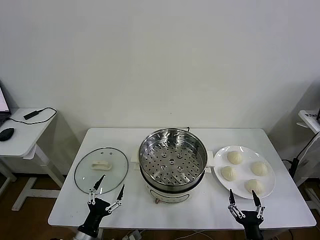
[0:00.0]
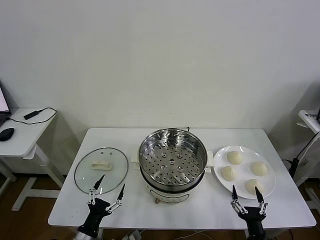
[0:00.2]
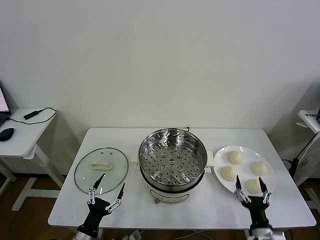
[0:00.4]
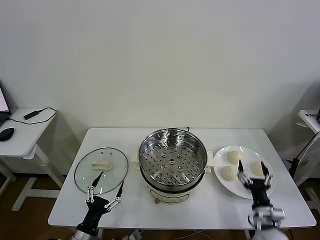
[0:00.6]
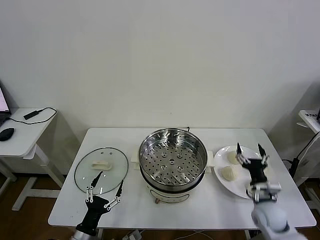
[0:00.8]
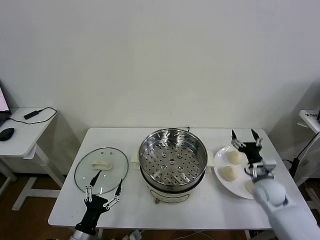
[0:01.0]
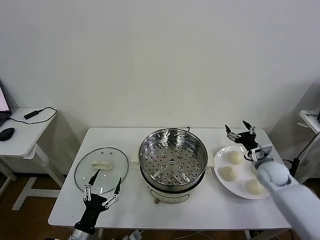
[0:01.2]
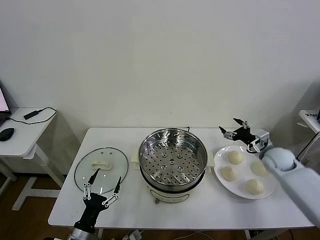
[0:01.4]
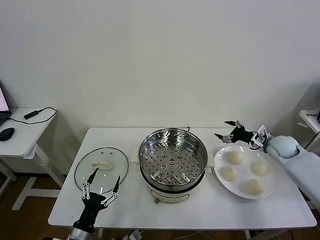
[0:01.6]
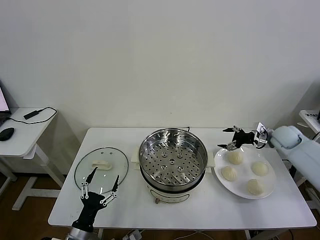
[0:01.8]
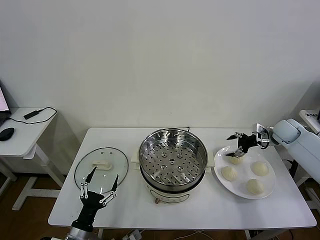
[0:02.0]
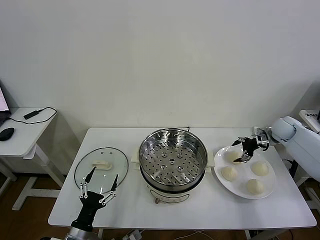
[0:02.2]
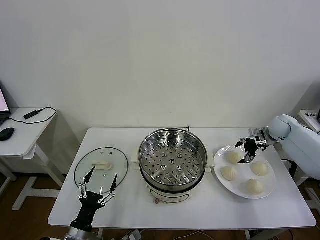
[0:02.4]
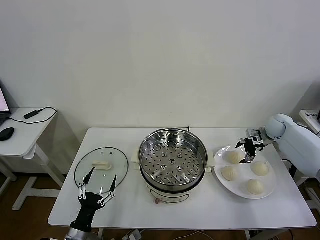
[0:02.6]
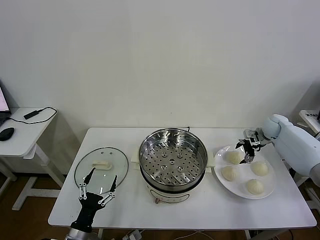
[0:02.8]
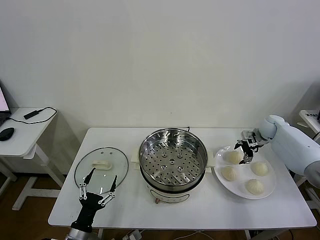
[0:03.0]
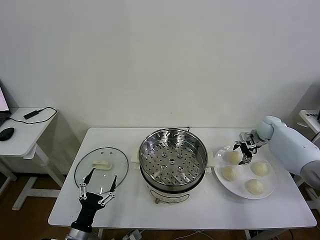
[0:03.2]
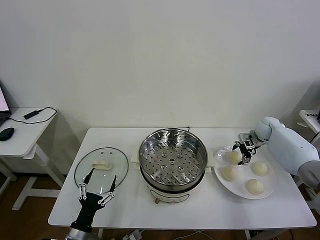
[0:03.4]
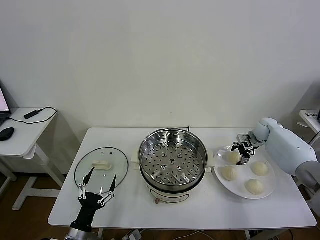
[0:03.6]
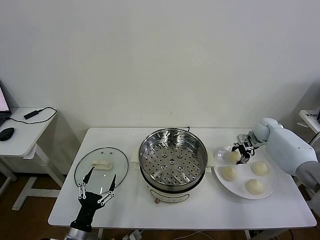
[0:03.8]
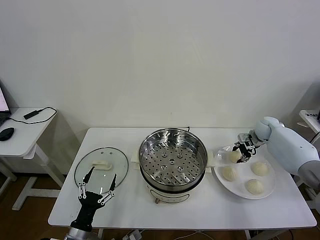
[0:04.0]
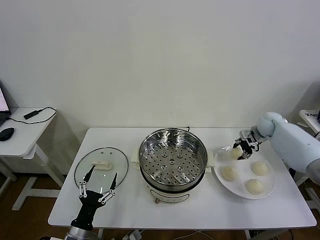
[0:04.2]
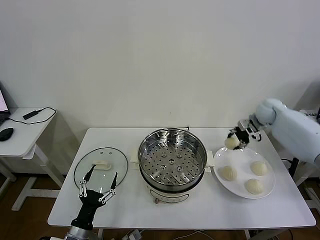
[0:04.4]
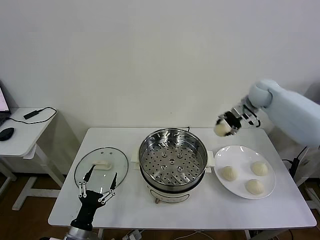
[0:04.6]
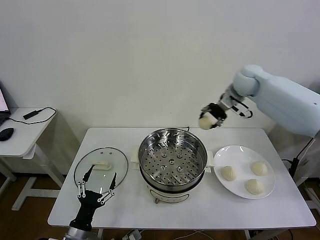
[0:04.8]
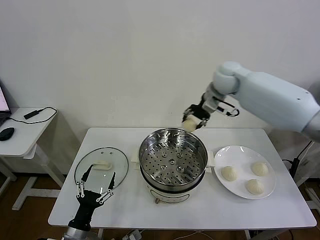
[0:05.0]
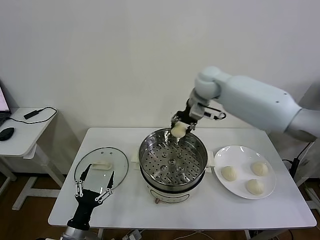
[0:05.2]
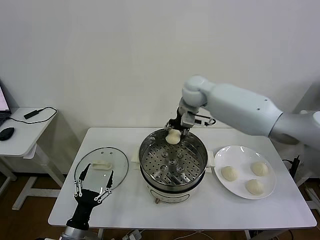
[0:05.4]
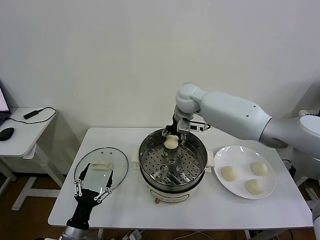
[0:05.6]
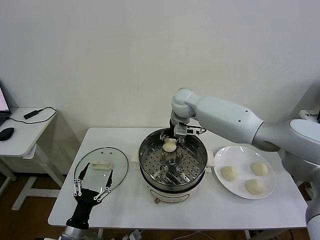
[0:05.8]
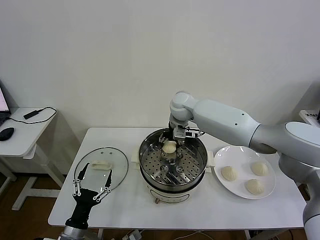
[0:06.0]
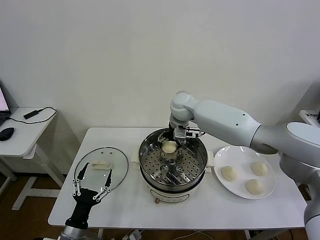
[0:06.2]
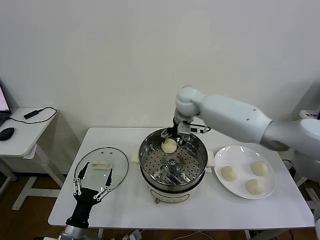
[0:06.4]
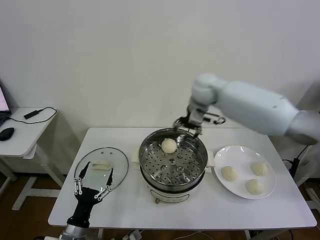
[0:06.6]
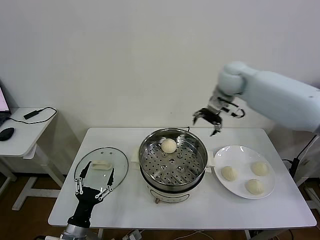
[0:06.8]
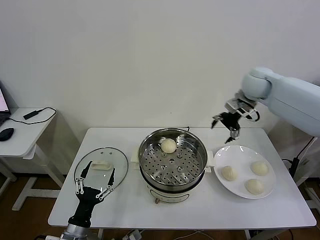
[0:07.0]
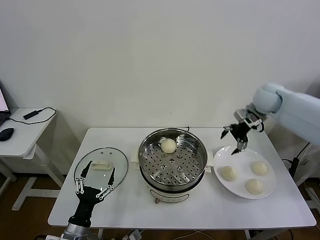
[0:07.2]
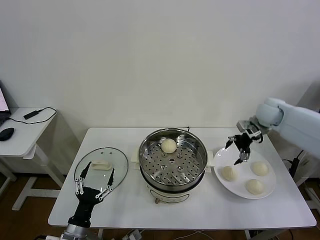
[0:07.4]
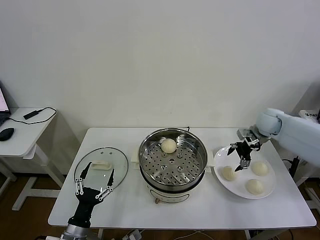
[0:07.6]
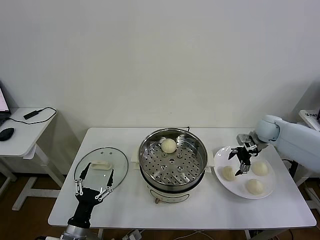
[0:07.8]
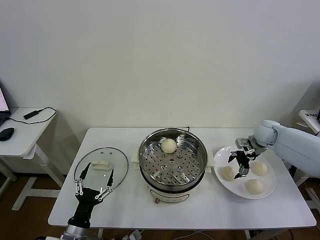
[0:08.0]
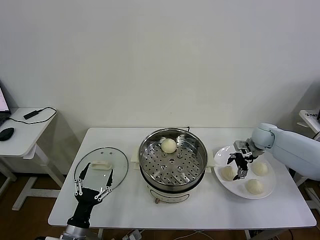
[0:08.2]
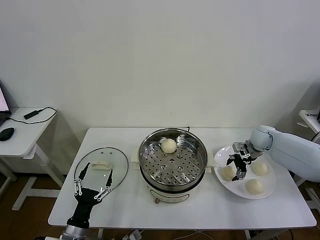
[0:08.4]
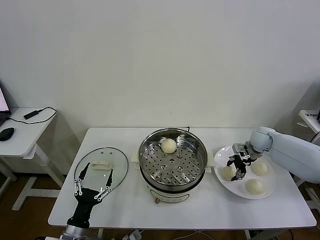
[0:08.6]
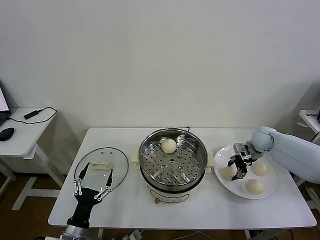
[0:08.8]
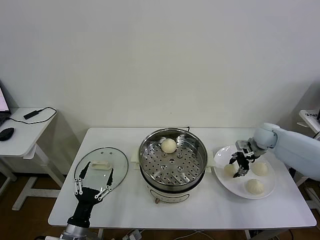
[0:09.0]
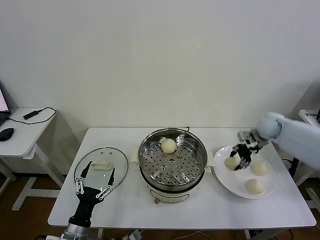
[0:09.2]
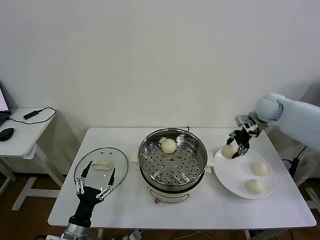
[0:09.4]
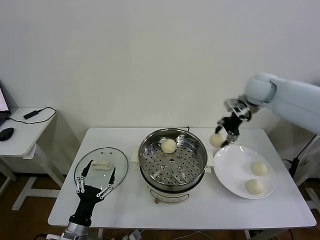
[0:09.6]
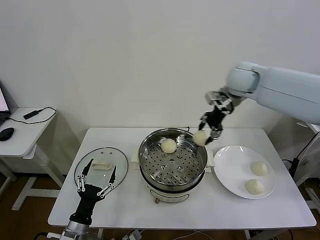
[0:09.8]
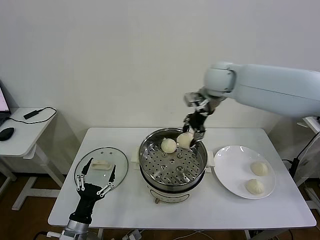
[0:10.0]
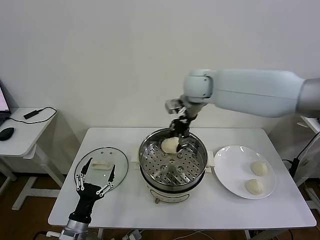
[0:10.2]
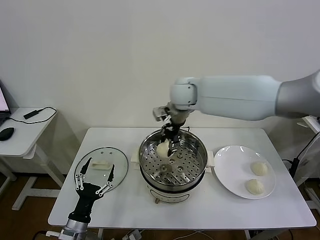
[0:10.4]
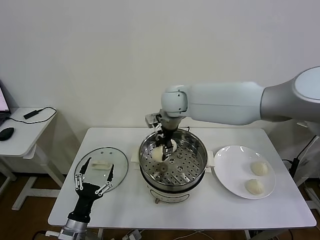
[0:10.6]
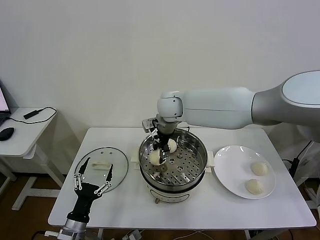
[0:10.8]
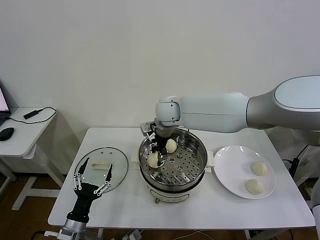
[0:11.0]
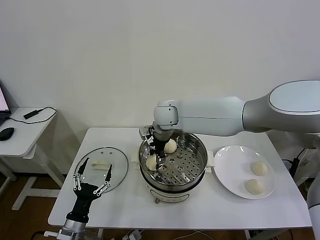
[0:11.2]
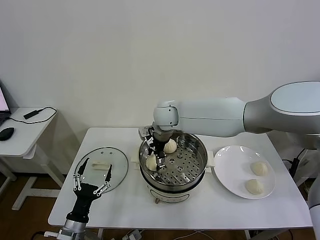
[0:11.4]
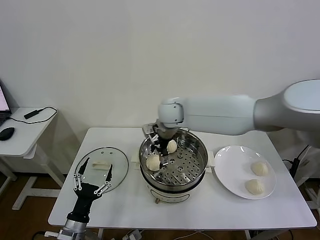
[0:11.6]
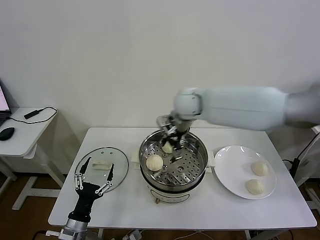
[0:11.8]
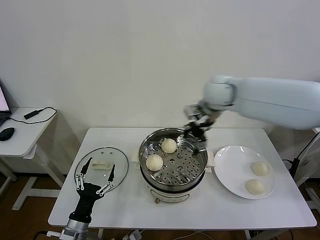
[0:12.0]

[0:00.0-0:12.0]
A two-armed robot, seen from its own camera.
Task of the whole recording: take steamed baozi put them in steamer then cover it.
Step, 0.0 to 3.6 s: Grasp the baozi in the plate with right gripper.
Step, 4.0 to 6.2 s: Place the baozi on the steamer with right gripper.
Step, 6.4 to 8.6 s: Grasp the baozi in the plate with right gripper.
Step, 9.0 to 11.4 s: Place the baozi on the steamer with right gripper.
1.6 to 3.0 s: The right gripper goes approximately 10 cm forward.
3.0 to 4.4 s: The right gripper is displaced upward by about 10 cm, and closes its fingers.
4.4 to 6.0 s: The right gripper heads to the left, covering approximately 35 cm, and opens its fingers.
6.0 to 7.6 s: The right gripper shifts about 30 cm to the right, and opens up.
7.6 to 9.0 s: The right gripper is displaced downward by approximately 5 cm, and closes.
9.0 to 10.4 s: The right gripper goes some 40 cm to the left and upward.
10.4 to 12.0 s: The right gripper heads to the right, covering some 10 cm, and opens up.

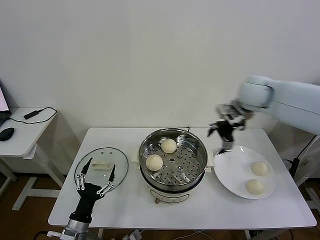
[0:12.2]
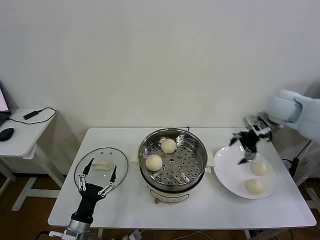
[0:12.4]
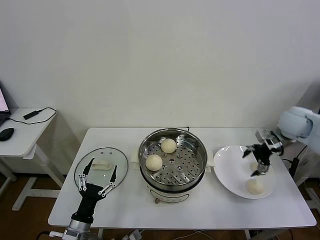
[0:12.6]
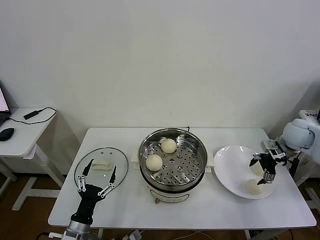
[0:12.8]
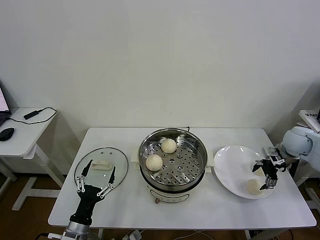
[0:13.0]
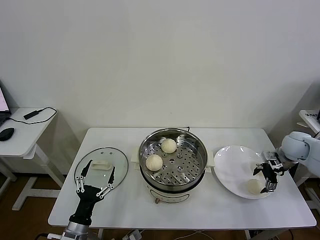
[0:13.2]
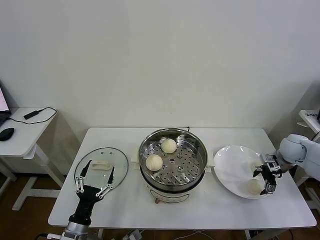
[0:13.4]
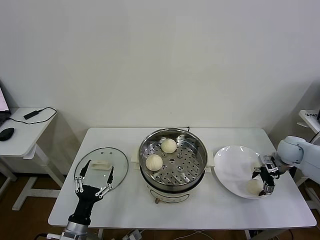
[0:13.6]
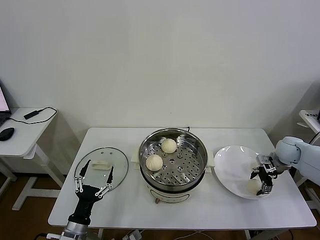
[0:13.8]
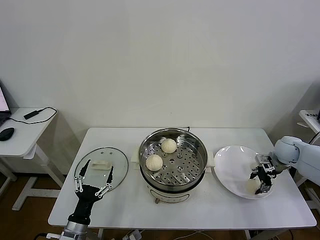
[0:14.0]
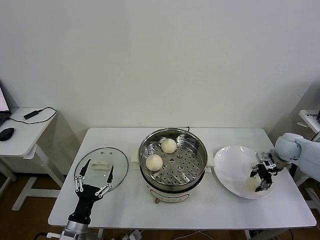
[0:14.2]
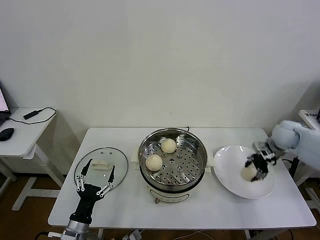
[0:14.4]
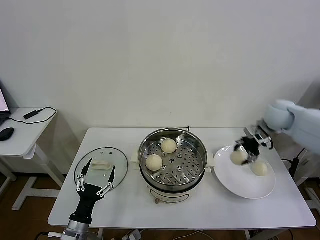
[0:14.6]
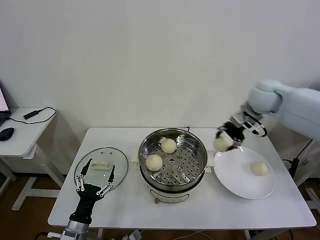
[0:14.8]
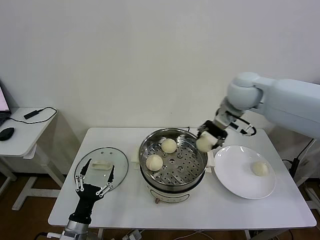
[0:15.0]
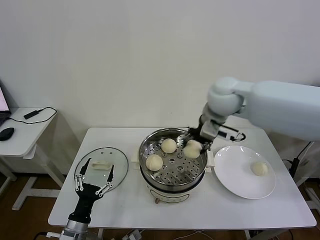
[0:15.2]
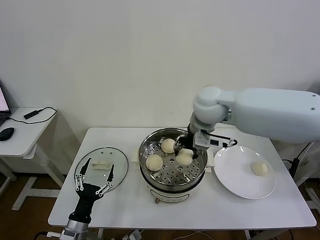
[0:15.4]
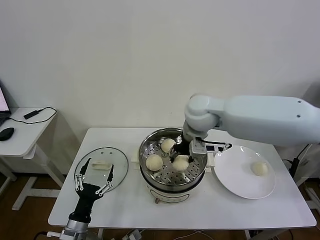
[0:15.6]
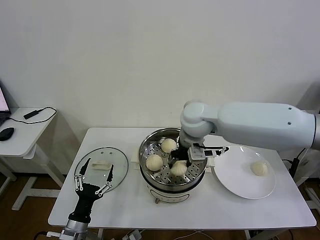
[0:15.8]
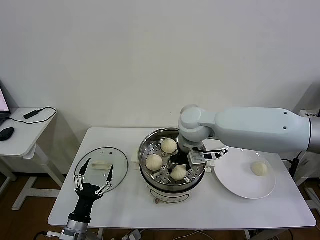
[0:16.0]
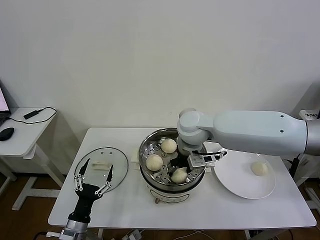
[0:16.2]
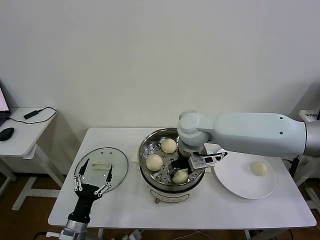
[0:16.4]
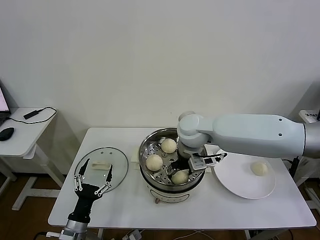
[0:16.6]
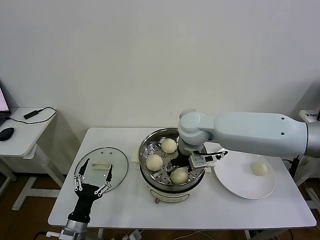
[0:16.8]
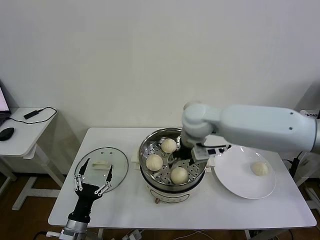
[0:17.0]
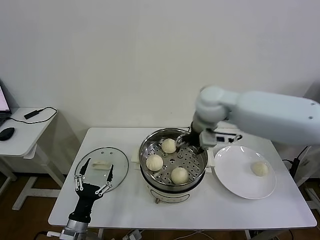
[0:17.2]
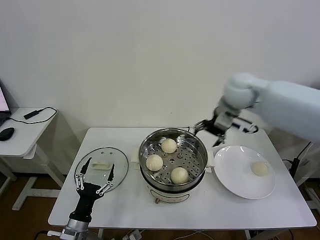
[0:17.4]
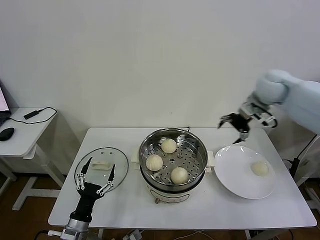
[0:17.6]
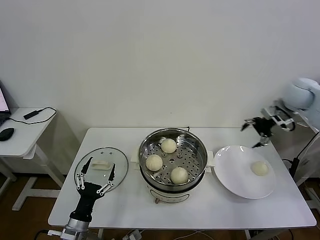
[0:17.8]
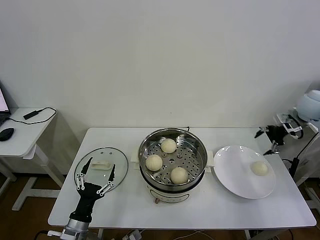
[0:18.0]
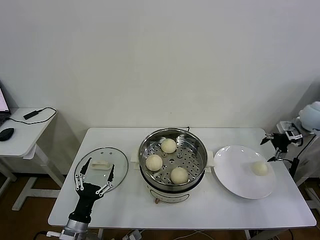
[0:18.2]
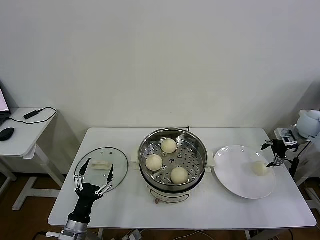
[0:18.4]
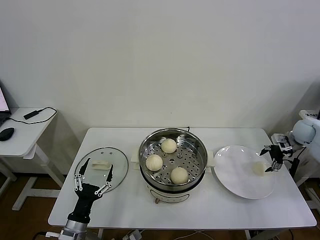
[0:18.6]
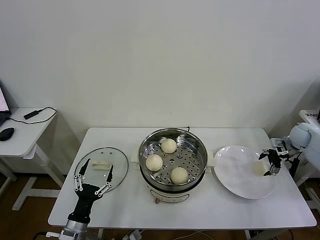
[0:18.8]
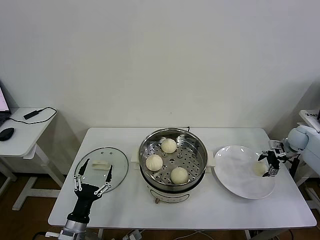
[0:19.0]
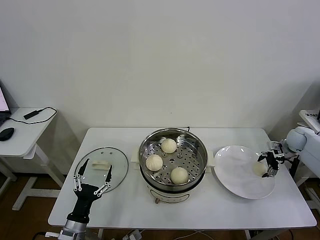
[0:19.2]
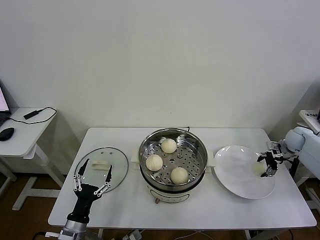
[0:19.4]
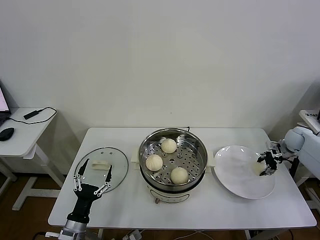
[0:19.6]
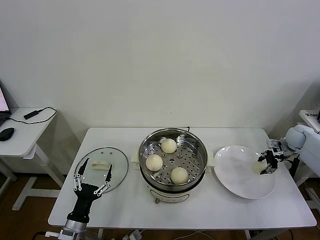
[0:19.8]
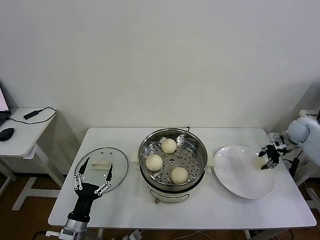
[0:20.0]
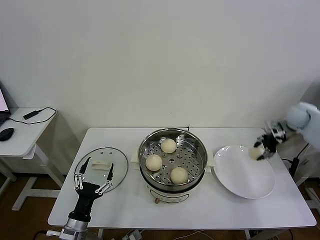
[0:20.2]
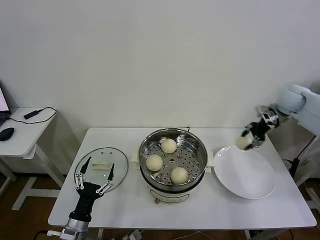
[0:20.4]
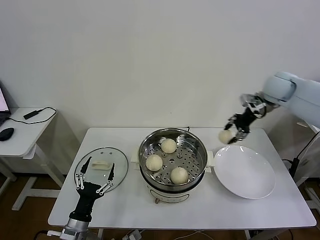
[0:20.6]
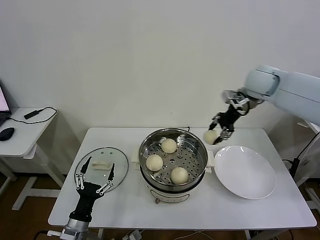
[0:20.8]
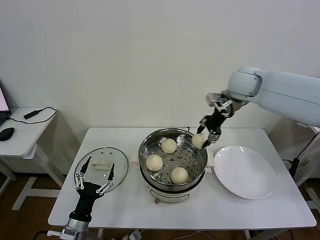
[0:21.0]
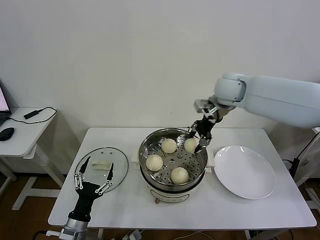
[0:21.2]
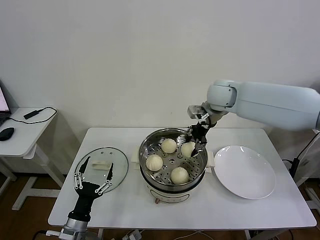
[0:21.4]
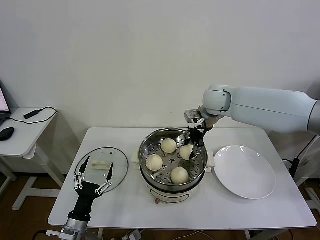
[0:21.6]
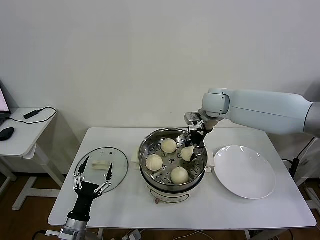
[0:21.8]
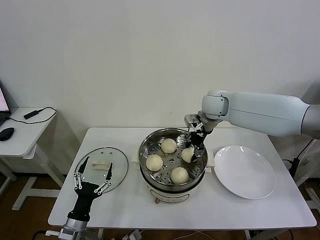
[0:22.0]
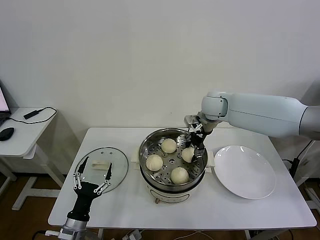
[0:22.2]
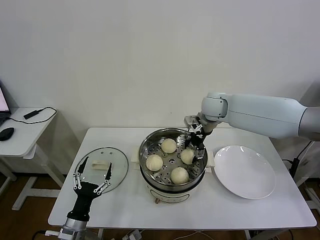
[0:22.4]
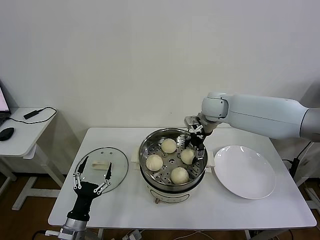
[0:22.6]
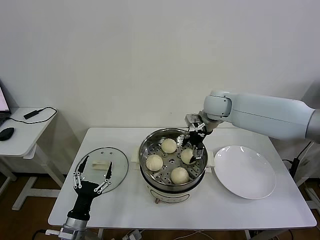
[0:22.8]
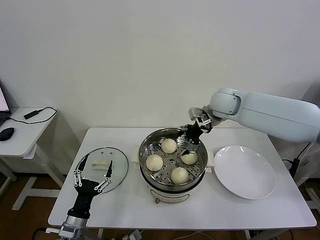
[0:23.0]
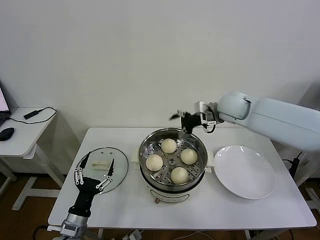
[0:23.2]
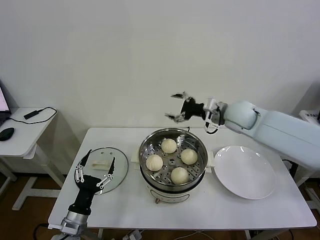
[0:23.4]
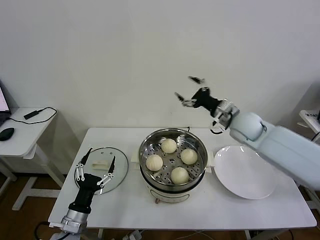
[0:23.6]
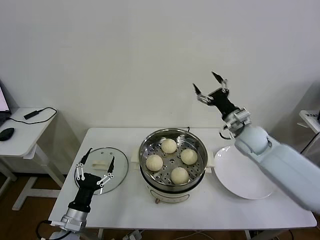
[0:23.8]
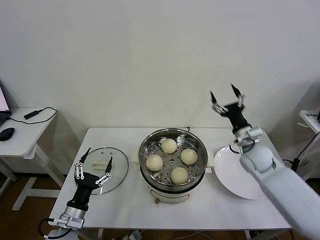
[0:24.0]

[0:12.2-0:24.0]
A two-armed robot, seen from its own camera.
Task of the whole recording: take steamed baozi put them in steamer then cover it.
Step, 12.2 to 13.8 s: Grasp the baozi in the plate with right gripper.
Step, 14.0 to 16.6 s: Place the baozi on the steamer with right gripper.
Step, 16.8 to 19.6 s: Grasp the baozi in the plate with right gripper.
Step, 19.8 to 22.4 s: Place the baozi on the steamer with right gripper.
12.2 to 13.6 s: The right gripper is displaced downward and to the right by about 30 cm.
13.6 to 15.2 s: The right gripper shifts some 40 cm to the left and upward, and closes its fingers.
15.2 to 16.6 s: The right gripper is displaced downward and to the left by approximately 10 cm, and opens.
16.6 to 18.2 s: The right gripper moves to the right, about 40 cm.
18.2 to 19.6 s: The right gripper travels downward by some 15 cm, and closes its fingers.
19.6 to 21.0 s: The right gripper travels to the left and upward by roughly 35 cm.
21.0 to 22.6 s: The right gripper moves downward and to the left, roughly 10 cm, and opens up.
22.6 to 24.0 s: The right gripper moves to the right, downward and backward, about 20 cm.
